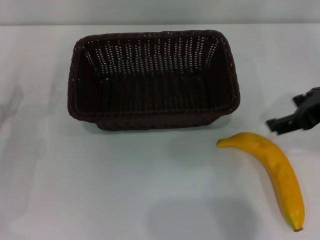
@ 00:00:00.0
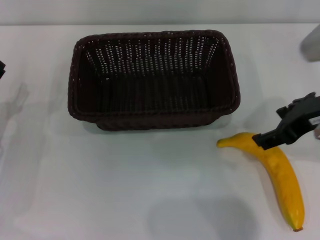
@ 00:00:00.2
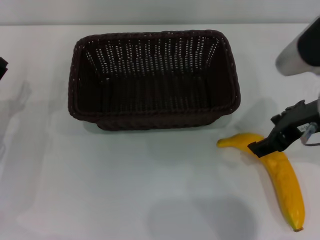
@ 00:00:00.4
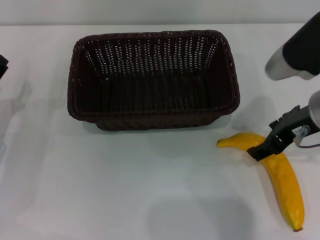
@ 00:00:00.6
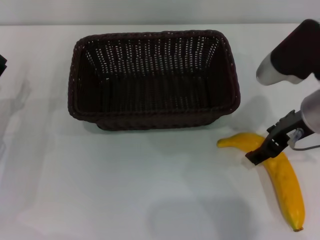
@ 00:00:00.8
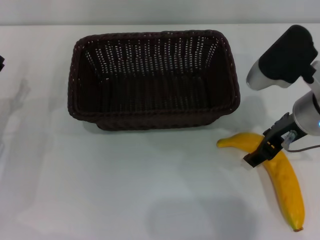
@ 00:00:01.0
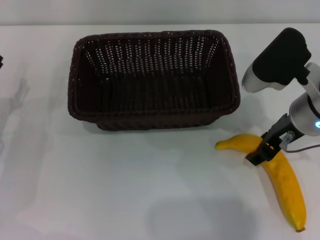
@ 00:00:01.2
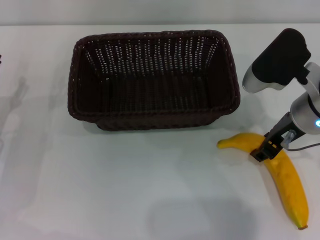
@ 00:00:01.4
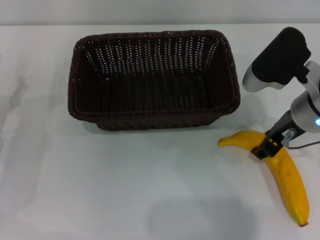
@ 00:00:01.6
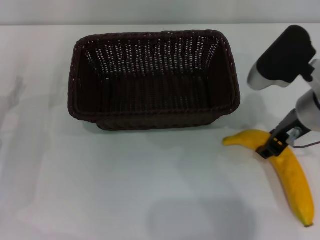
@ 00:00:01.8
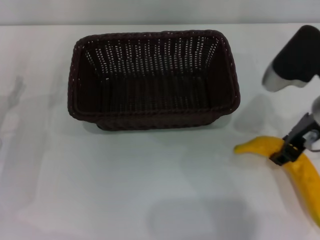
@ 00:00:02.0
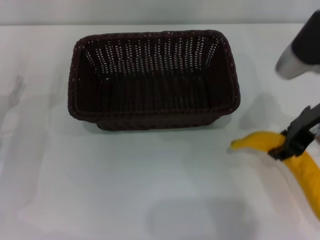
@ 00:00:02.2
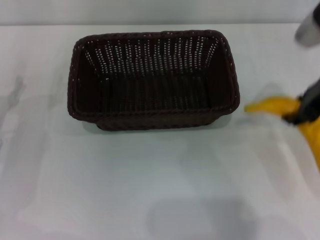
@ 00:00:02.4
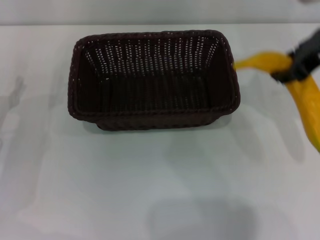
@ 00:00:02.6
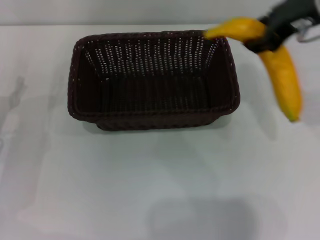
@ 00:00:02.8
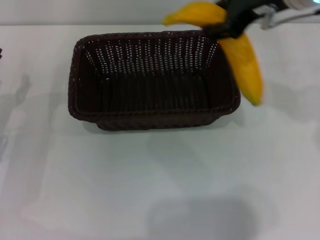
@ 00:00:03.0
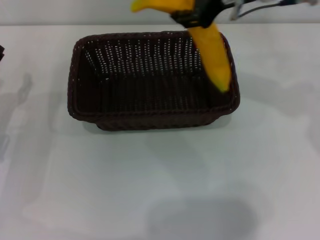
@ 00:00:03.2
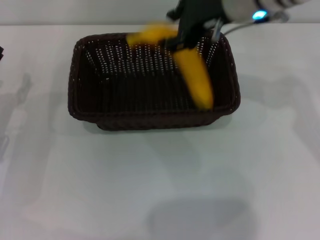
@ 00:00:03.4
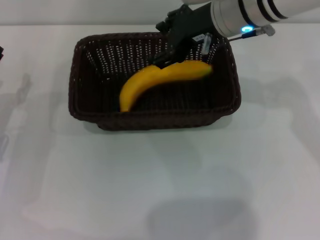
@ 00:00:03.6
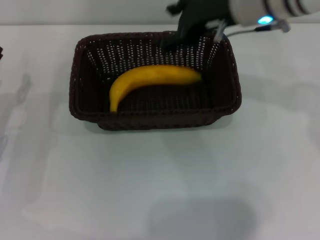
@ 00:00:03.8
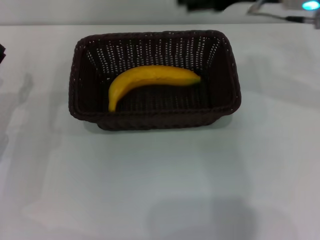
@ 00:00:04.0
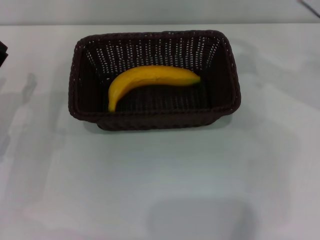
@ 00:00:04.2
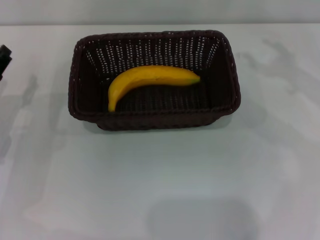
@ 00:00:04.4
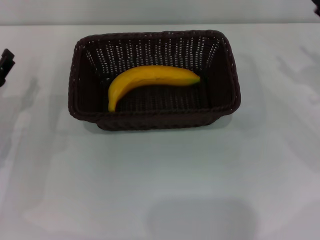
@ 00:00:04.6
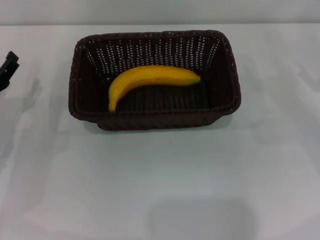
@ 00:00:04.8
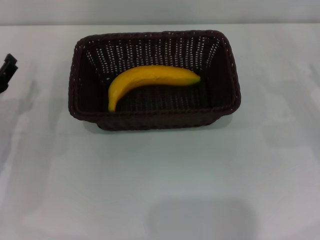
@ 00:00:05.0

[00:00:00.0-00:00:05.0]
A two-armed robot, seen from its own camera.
Step, 00:00:00.0 to 00:00:02.2: Pick up the banana with the right gripper.
00:00:00.0 to 00:00:01.6: The right gripper travels downward and to the left by some 10 cm, and closes up.
00:00:01.6 to 00:00:03.4: The right gripper goes some 15 cm upward, to the left and forward.
00:00:03.4 to 00:00:05.0: The right gripper heads to the right and downward, covering approximately 30 cm, and opens its fingers.

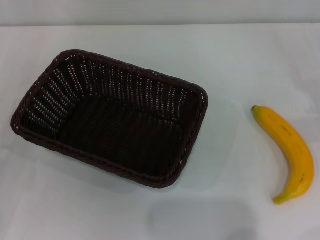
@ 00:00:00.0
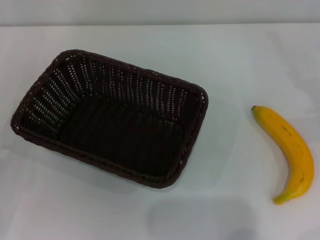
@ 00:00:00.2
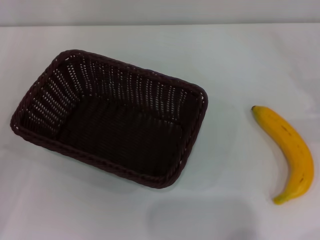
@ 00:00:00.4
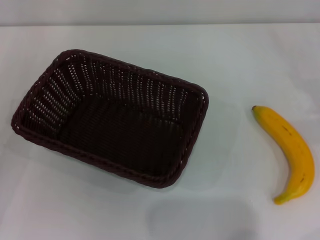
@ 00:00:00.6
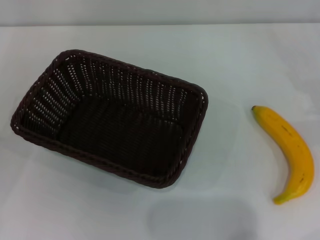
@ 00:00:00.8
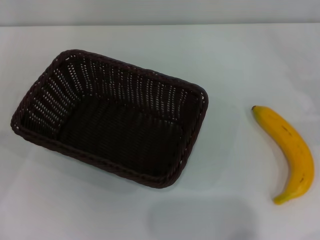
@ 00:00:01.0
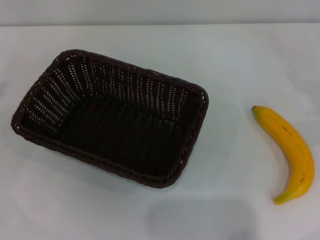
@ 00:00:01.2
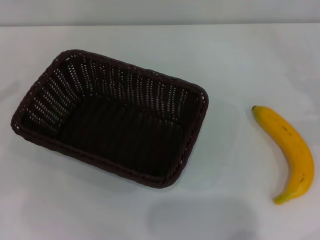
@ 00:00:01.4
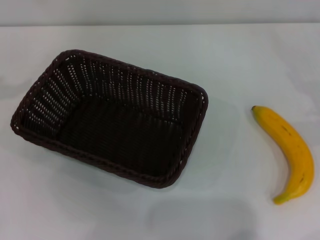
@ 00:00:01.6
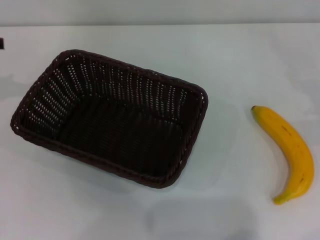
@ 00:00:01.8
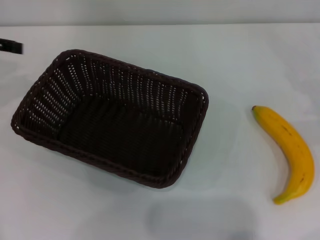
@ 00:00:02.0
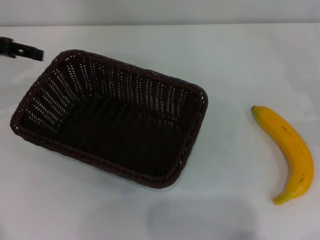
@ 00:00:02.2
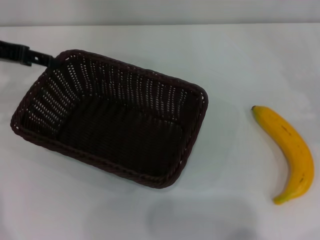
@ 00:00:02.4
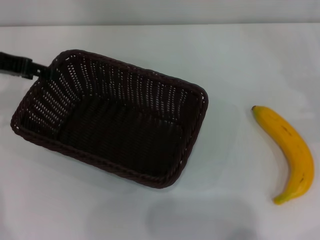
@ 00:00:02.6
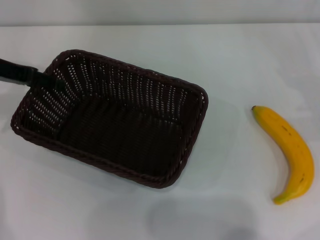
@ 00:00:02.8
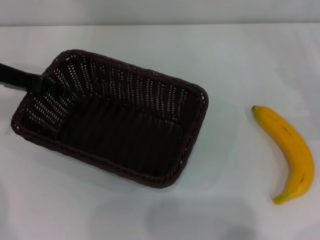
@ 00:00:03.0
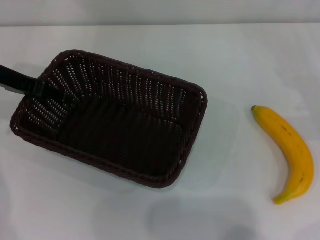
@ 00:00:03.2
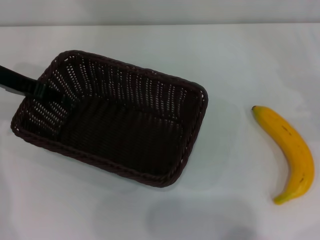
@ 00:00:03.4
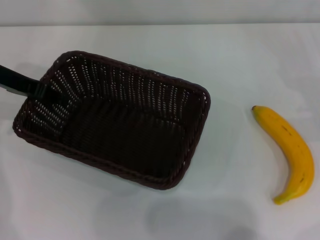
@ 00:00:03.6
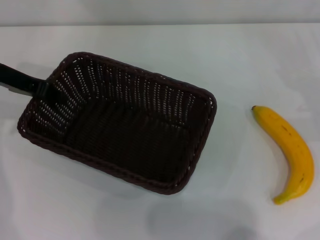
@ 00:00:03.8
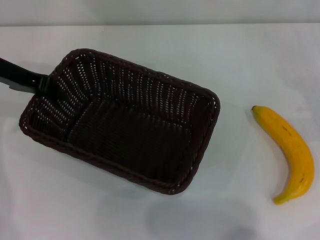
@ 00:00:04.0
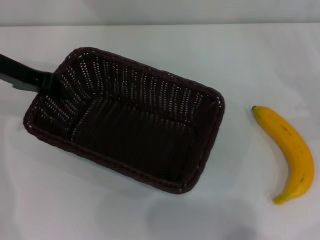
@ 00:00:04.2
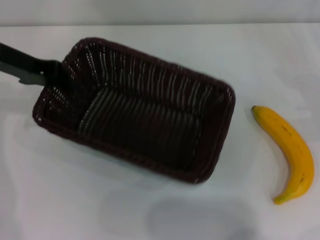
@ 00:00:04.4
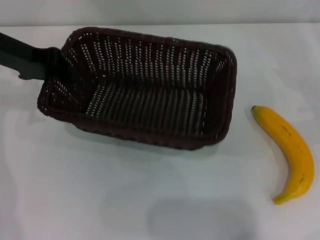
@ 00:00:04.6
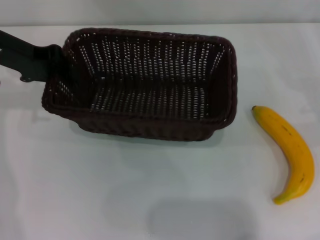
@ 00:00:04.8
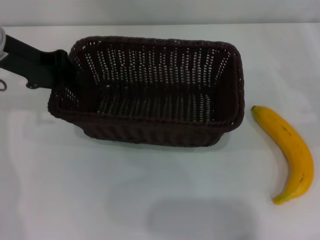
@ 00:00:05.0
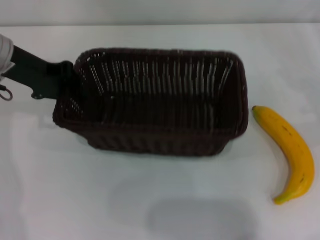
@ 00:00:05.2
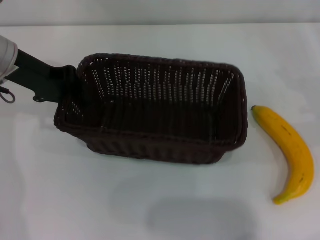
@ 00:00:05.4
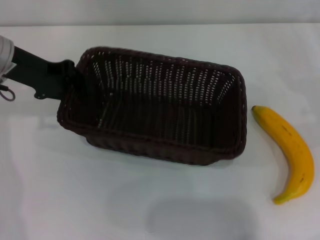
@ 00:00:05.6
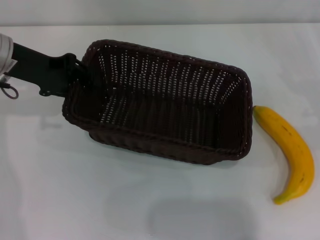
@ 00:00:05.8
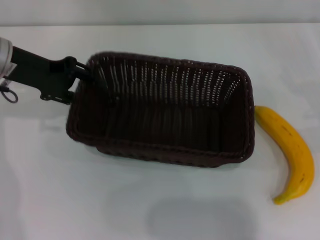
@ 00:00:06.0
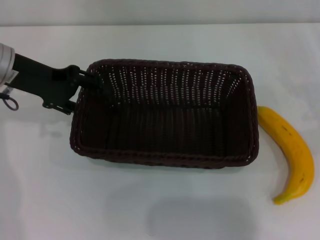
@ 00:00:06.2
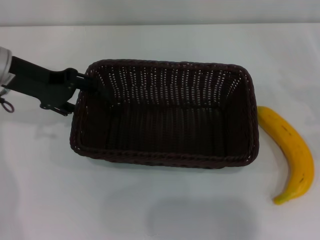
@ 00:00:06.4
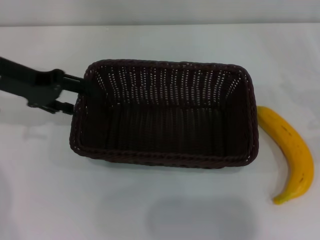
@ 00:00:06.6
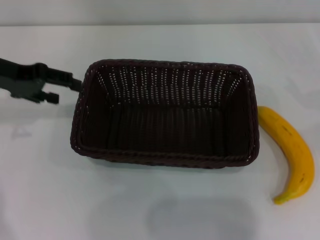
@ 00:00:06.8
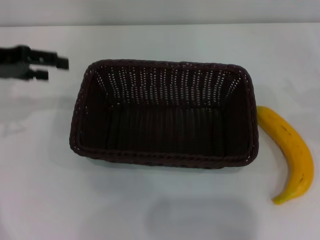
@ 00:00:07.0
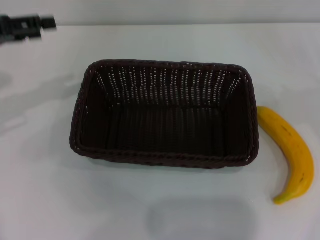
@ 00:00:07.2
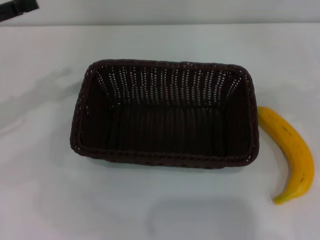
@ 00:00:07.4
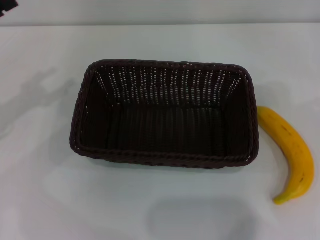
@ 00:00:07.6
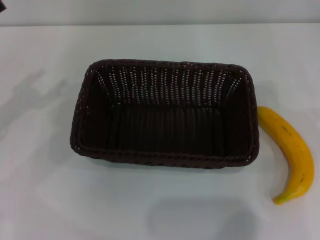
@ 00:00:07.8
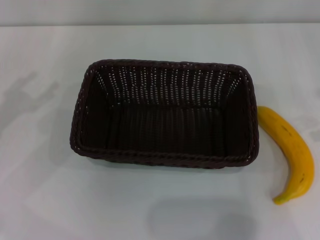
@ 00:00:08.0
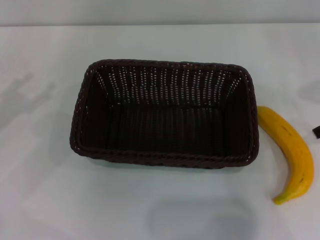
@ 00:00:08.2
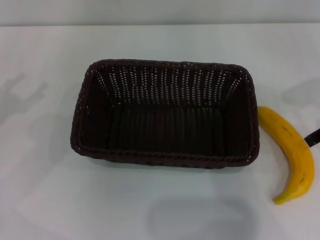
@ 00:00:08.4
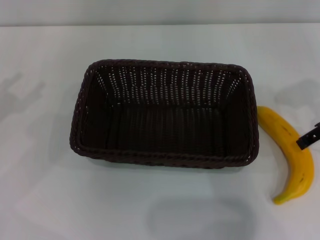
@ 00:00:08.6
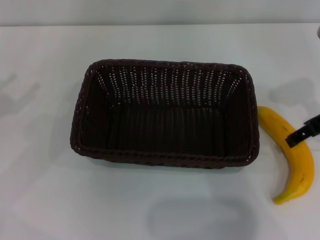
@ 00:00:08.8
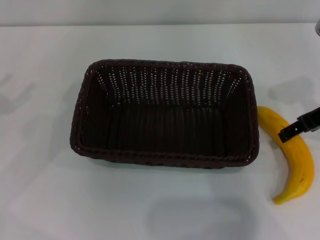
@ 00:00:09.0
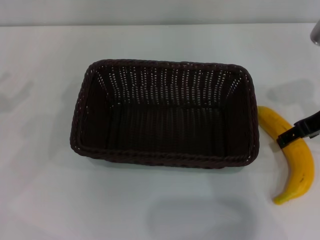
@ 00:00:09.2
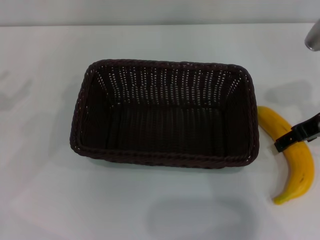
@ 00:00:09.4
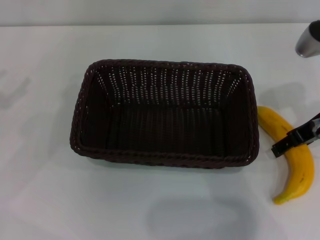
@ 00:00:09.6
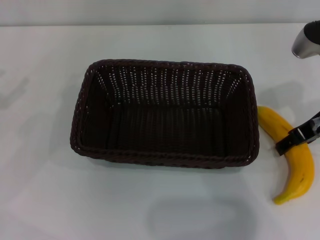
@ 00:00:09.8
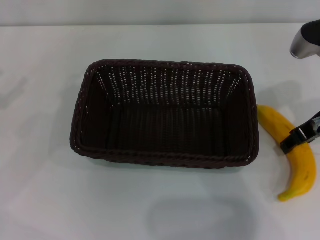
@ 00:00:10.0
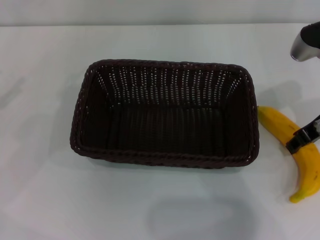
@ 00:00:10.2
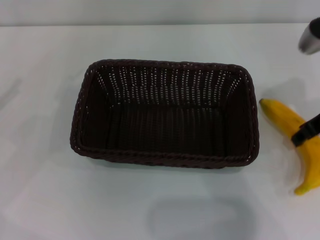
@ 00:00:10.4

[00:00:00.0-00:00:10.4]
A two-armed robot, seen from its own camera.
Step, 00:00:00.0 to 00:00:04.6: Pick up the dark basket with the left gripper.
Step, 00:00:04.8 to 00:00:06.8: Place the dark basket in the center of view with the left gripper.
00:00:01.4 to 00:00:03.0: The left gripper moves to the right and forward, some 15 cm.
00:00:03.0 to 00:00:04.4: The left gripper closes up.
00:00:06.0 to 00:00:07.4: The right gripper shifts about 10 cm upward. The left gripper travels to the left and backward by some 10 cm, and opens up.
00:00:07.4 to 00:00:09.0: The right gripper shifts roughly 20 cm to the left; the left gripper heads to the left and backward, covering roughly 10 cm.
00:00:09.0 to 00:00:10.4: The right gripper closes up.

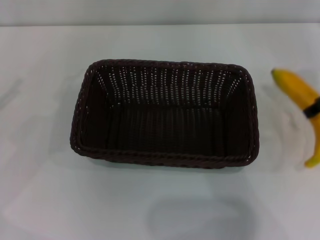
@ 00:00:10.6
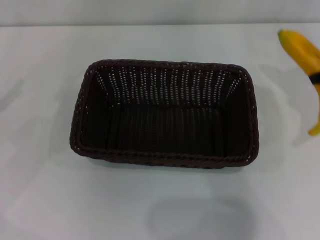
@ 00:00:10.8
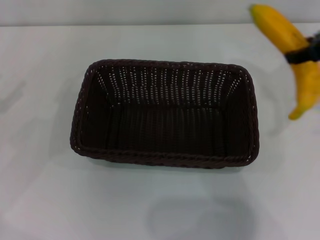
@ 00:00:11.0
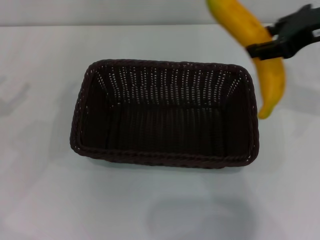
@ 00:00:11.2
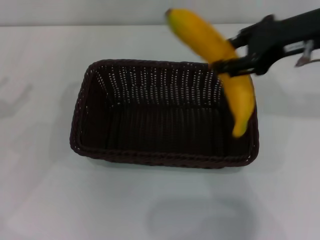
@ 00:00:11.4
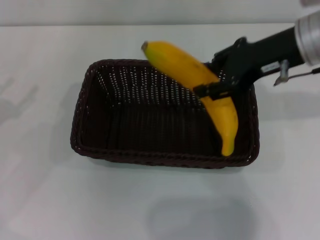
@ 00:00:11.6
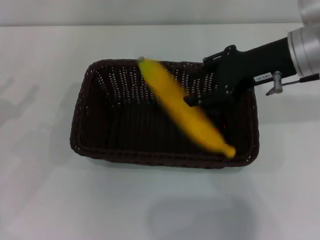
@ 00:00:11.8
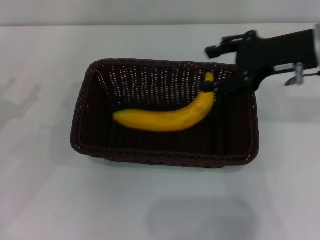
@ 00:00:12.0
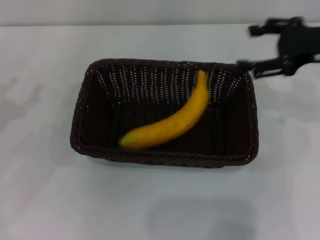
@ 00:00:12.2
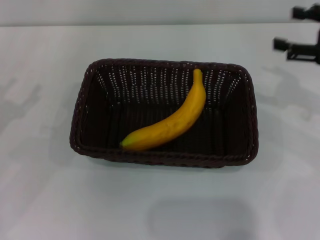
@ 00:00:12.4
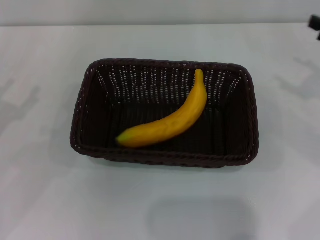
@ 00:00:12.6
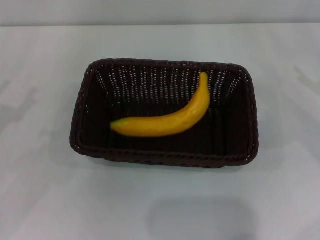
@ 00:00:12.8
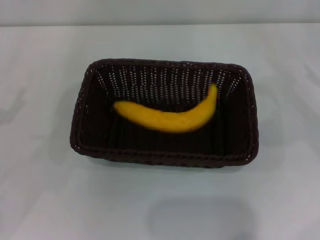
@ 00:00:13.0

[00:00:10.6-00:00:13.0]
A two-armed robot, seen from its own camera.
Step, 00:00:10.8 to 00:00:12.0: Place the banana into the dark basket with the right gripper.
00:00:10.6 to 00:00:11.8: The left gripper ends up roughly 5 cm from where it was. Meanwhile the right gripper moves to the left, some 10 cm.
00:00:11.8 to 00:00:13.0: The right gripper is displaced to the right and downward by roughly 20 cm, and opens.
